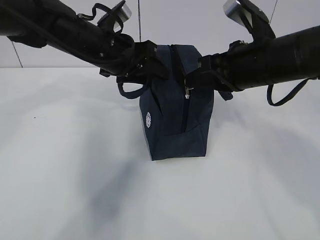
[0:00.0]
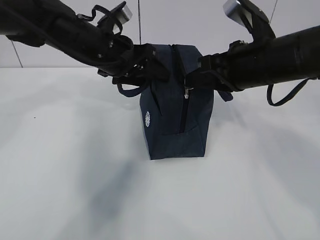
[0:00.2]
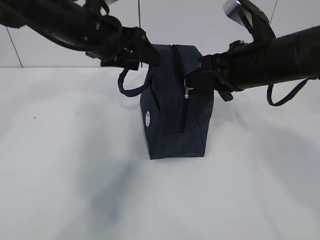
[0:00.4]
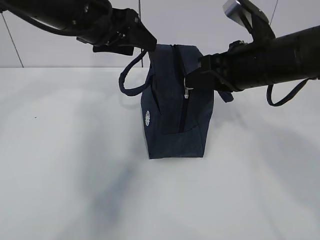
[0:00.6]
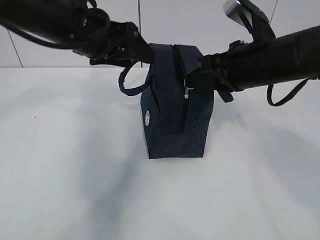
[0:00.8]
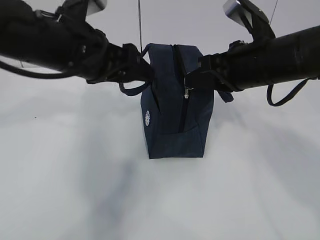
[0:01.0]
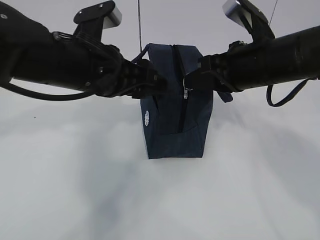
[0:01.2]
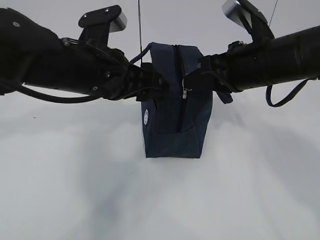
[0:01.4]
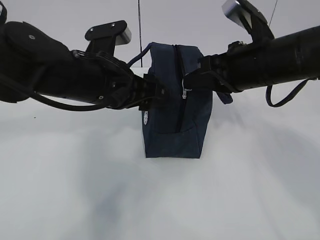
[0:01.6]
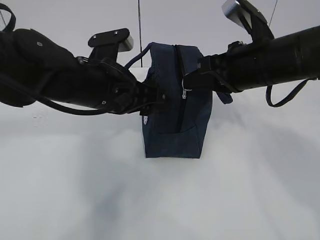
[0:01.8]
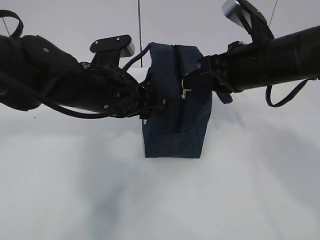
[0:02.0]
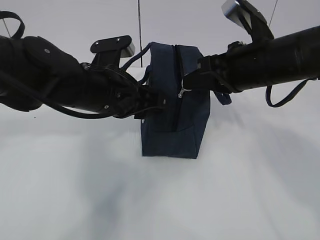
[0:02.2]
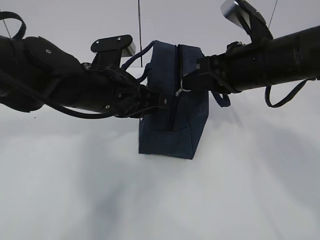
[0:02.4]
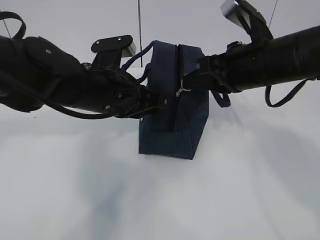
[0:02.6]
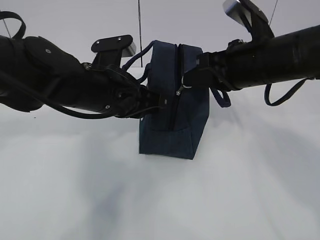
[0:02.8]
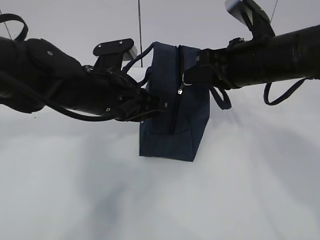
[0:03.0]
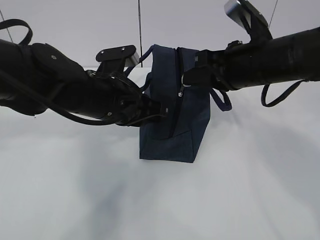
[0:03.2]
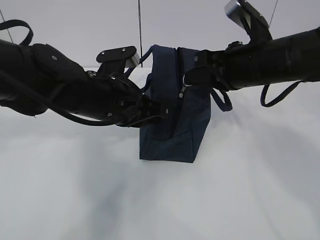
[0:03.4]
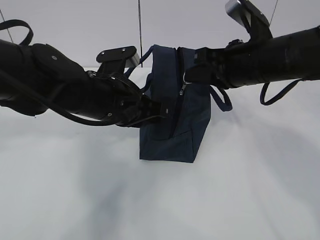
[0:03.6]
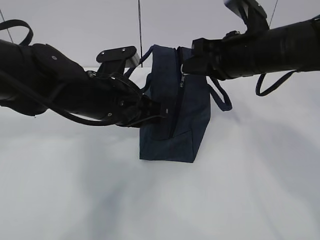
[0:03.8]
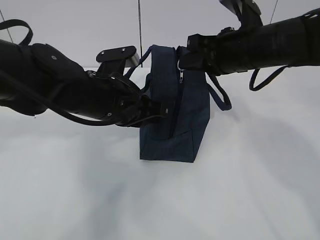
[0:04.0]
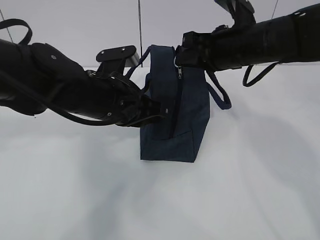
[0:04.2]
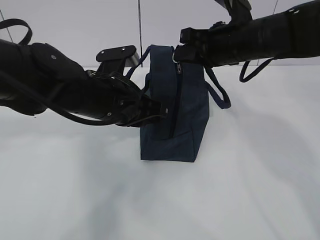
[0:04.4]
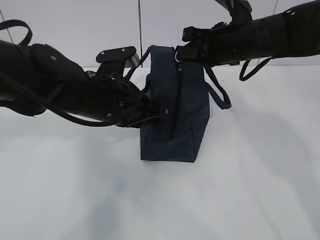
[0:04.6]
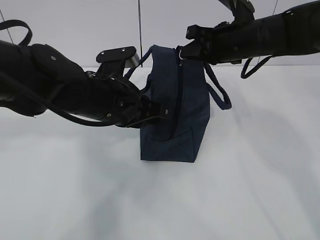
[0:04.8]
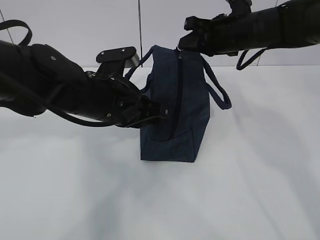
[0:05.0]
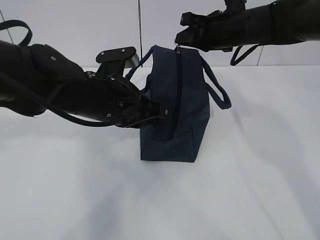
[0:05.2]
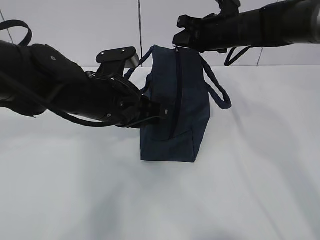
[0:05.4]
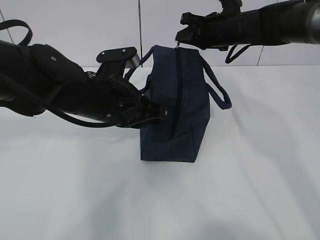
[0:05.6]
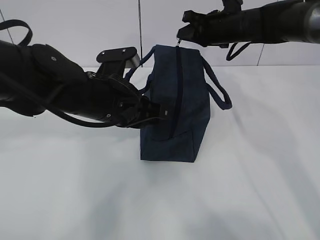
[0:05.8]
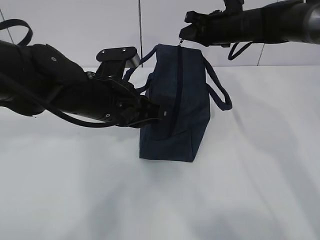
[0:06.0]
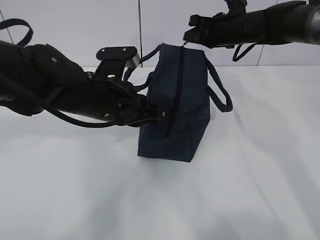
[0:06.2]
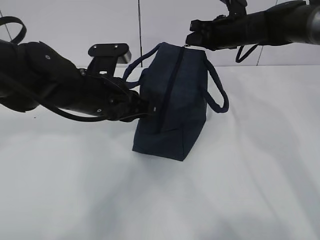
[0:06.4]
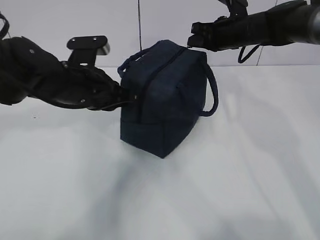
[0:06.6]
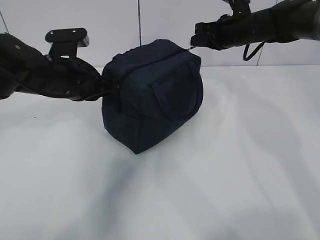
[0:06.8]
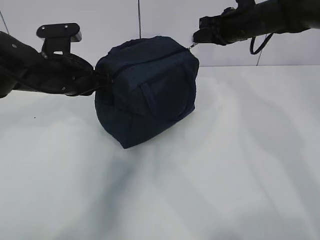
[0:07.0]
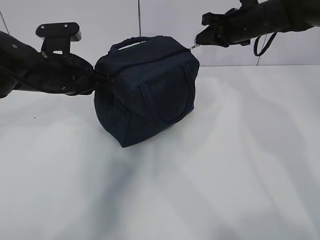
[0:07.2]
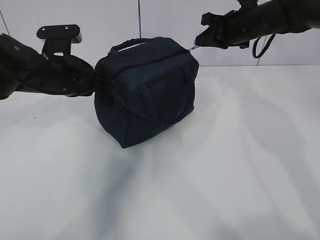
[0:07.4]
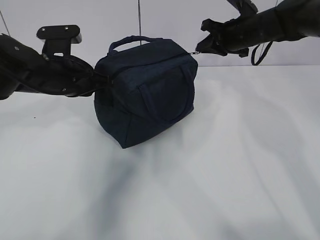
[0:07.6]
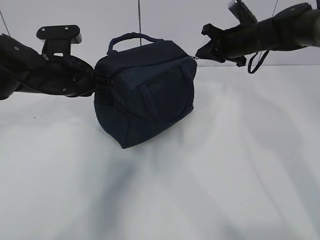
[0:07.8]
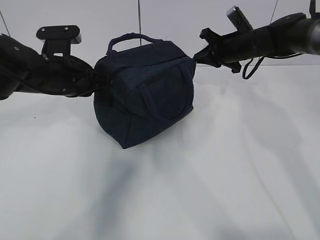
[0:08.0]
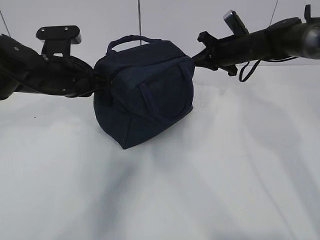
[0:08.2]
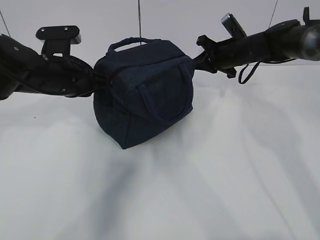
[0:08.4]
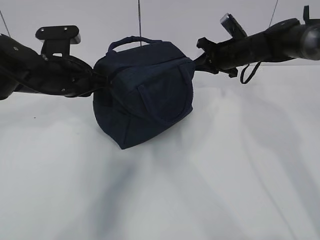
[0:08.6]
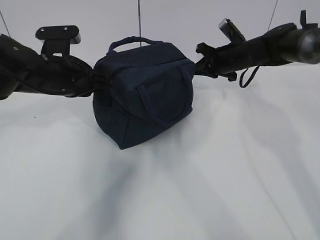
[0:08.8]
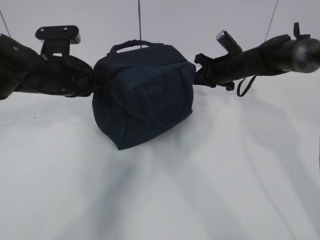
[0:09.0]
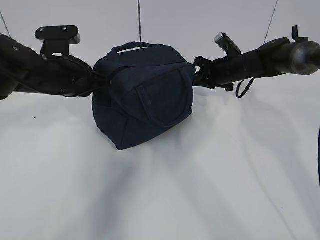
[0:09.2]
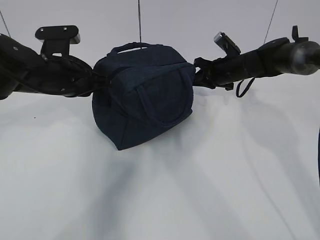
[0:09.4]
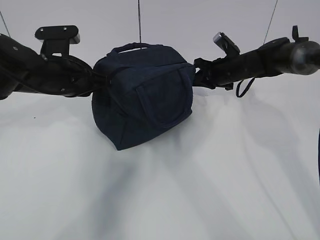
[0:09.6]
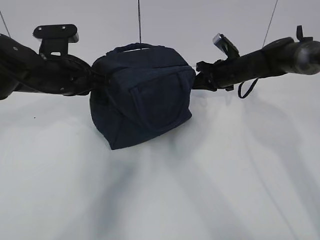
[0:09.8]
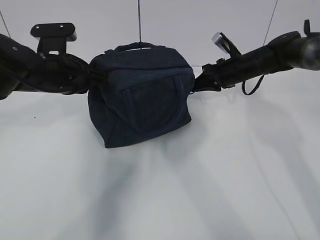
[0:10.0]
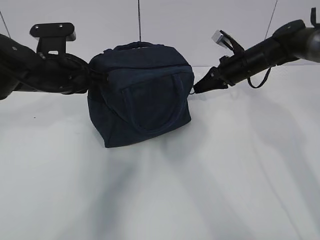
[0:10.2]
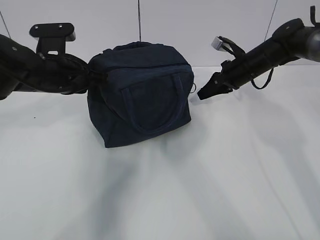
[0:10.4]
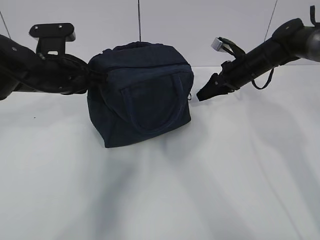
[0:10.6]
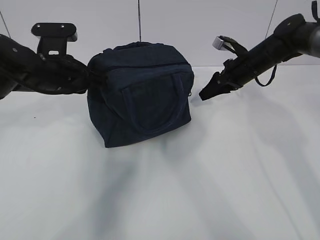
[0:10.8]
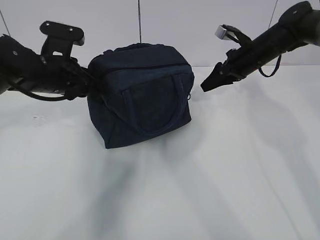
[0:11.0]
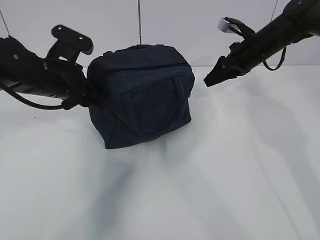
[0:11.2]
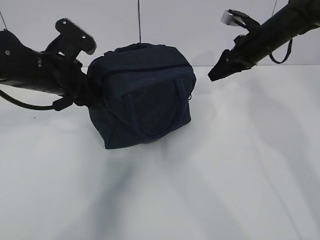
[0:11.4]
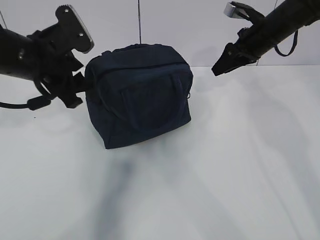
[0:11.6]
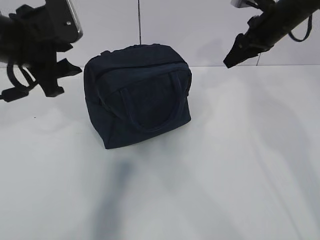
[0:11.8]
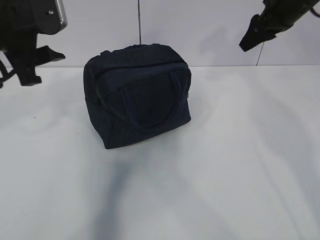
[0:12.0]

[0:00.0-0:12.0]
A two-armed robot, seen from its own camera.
0.0 to 1.6 s: The left gripper heads backward, covering about 10 cm.
1.6 to 3.0 s: The left gripper closes its fingers.
3.0 to 4.4 s: The right gripper goes some 5 cm forward.
4.4 to 6.0 s: The right gripper travels forward by some 15 cm.
6.0 to 7.6 s: The left gripper shifts approximately 10 cm to the left and forward.
7.6 to 9.0 s: The right gripper moves downward, some 10 cm.
10.4 to 12.0 s: The left gripper travels upward and backward by approximately 10 cm, and opens its fingers; the right gripper shifts about 15 cm upward, and opens.

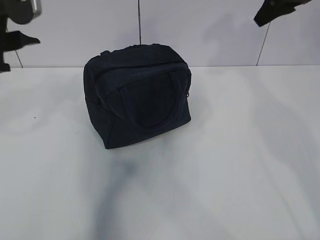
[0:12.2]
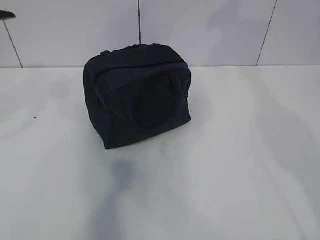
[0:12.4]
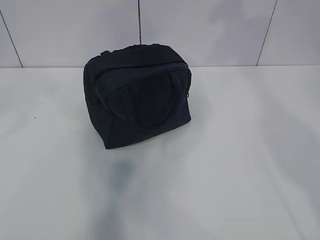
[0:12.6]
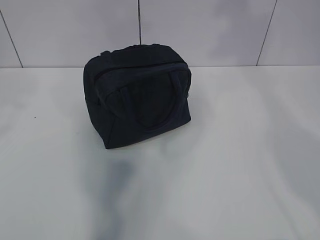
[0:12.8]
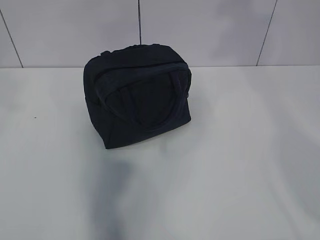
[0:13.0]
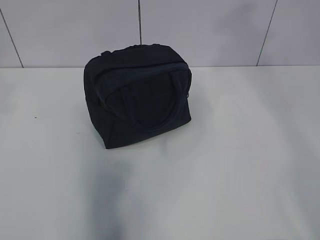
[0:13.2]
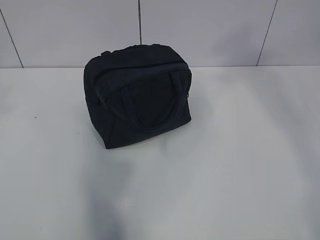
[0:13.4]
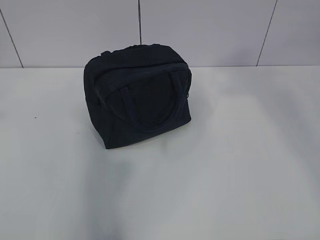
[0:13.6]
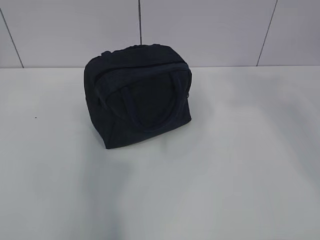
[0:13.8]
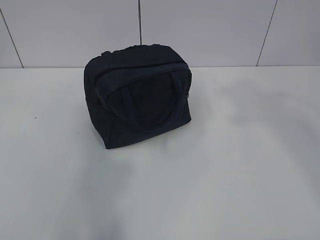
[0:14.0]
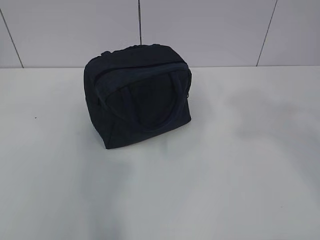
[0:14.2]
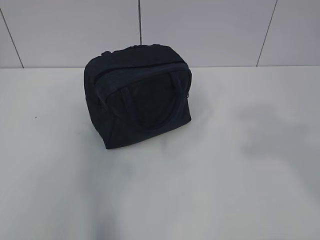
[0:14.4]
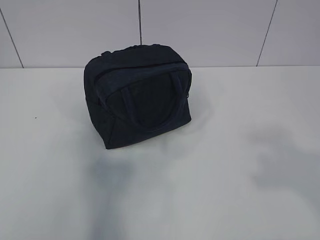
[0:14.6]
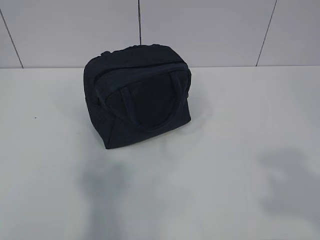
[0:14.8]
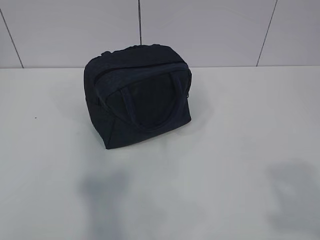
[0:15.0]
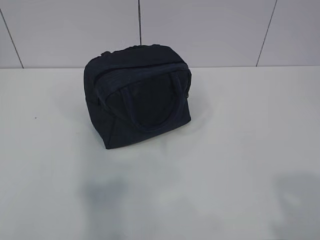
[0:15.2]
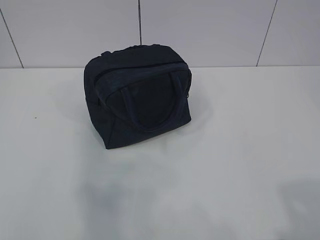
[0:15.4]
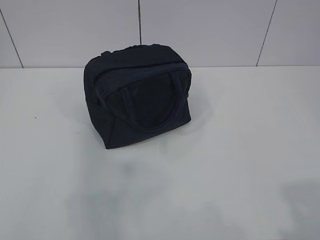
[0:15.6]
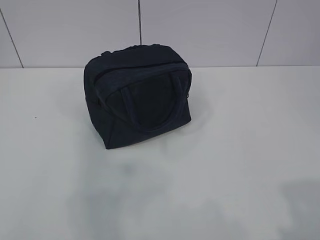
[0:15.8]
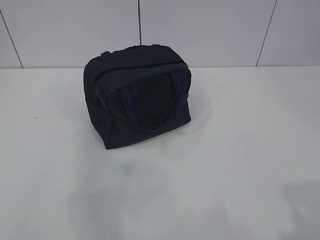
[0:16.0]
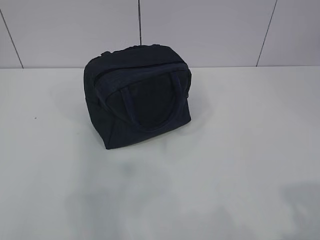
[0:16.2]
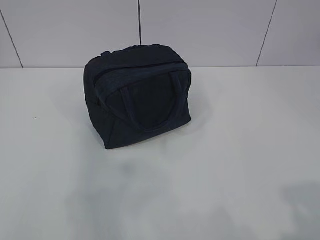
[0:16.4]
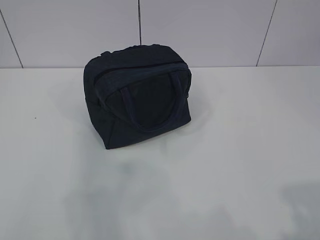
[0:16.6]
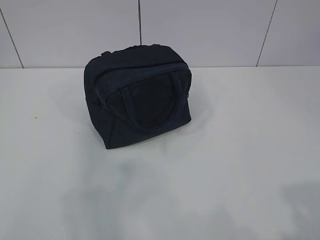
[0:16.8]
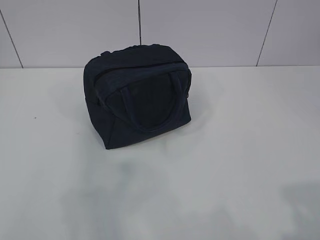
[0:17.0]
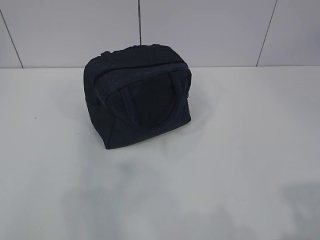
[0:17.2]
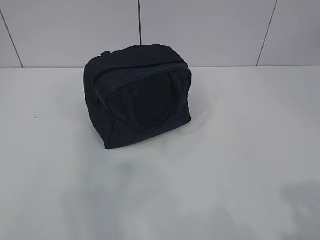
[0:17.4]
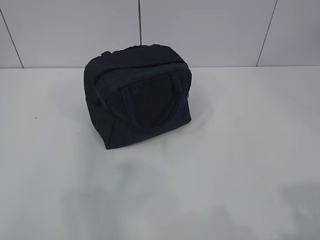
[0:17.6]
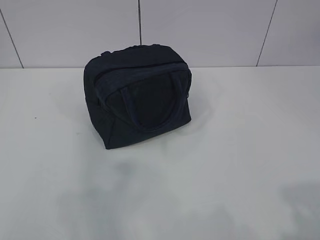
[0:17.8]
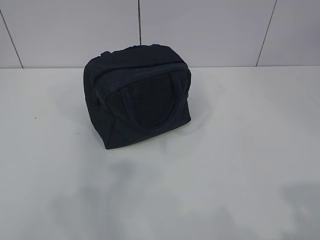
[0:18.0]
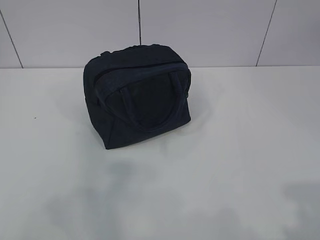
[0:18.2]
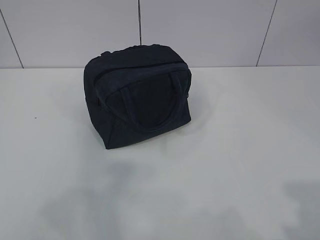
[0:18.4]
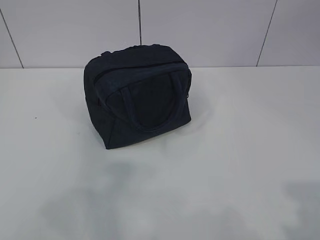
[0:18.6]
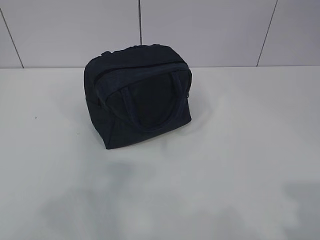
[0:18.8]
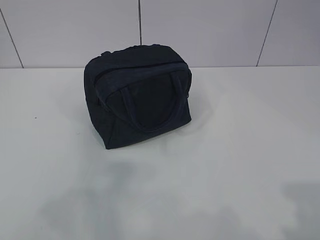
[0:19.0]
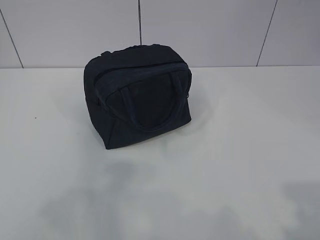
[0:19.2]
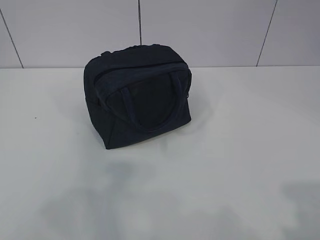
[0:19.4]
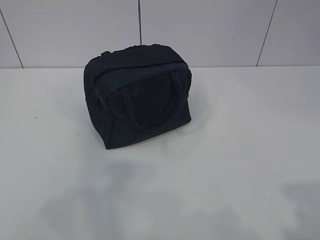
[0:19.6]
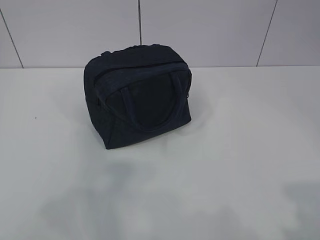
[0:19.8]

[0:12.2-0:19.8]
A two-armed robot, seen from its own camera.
12.2 to 13.8 s: The right gripper shifts roughly 40 cm backward and upward; the left gripper is displaced backward, upward and to the left by roughly 25 cm.

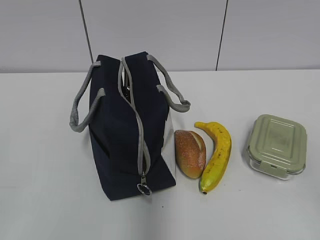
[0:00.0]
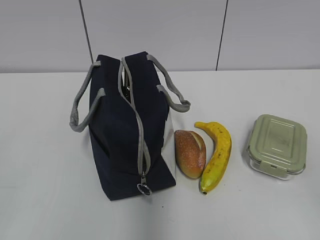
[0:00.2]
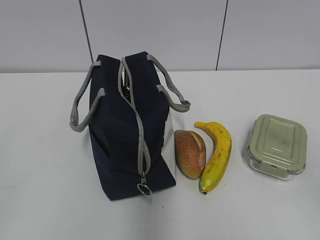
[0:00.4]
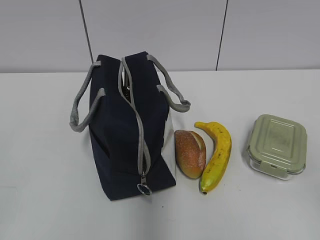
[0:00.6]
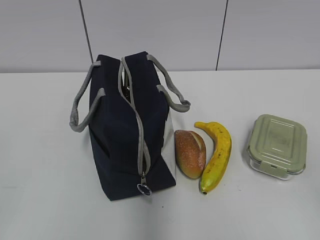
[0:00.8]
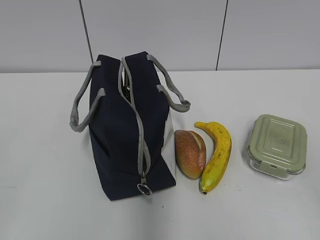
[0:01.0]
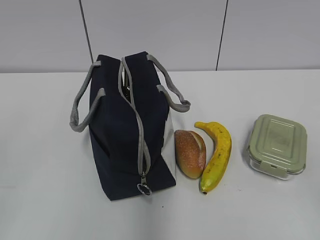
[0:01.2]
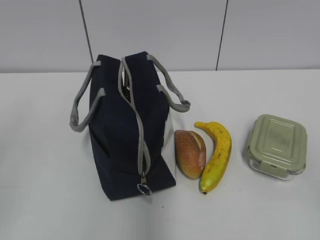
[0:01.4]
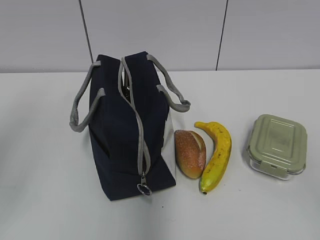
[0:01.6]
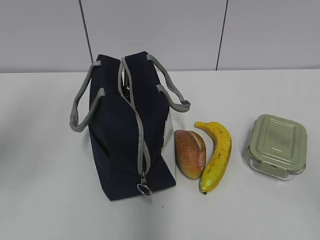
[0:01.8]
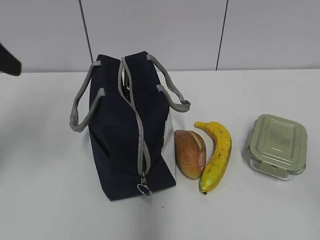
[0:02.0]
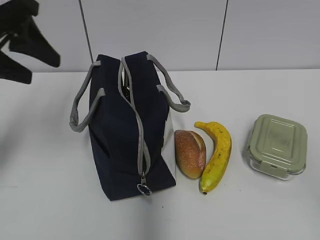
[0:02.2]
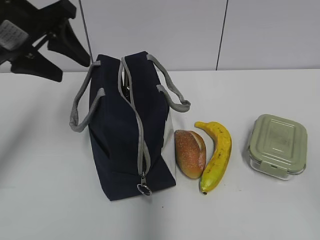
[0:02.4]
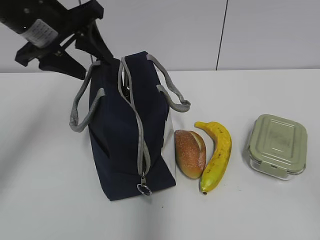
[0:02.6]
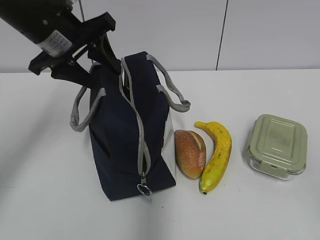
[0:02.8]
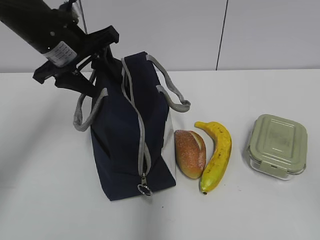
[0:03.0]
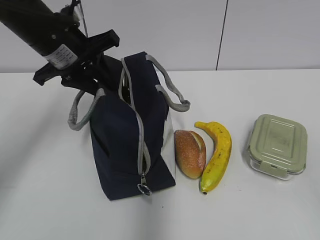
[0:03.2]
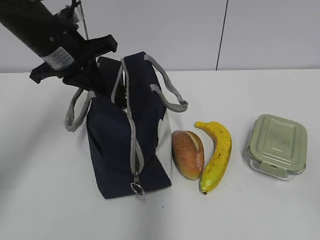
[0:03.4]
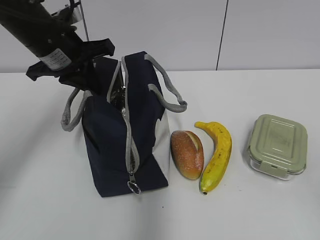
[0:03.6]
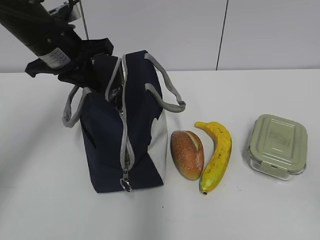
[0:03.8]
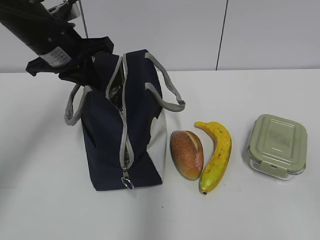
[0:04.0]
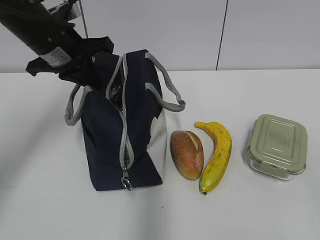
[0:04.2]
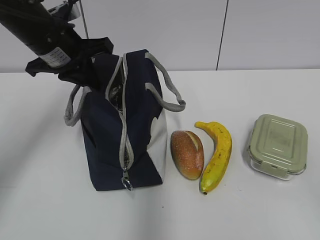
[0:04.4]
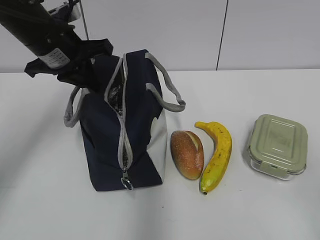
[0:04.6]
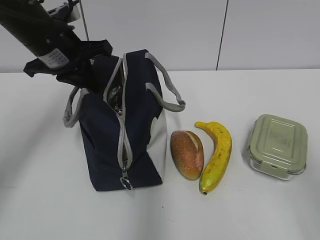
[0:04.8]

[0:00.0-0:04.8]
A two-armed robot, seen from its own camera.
1.6 to 3.2 s: The left gripper travels forward and to the right by about 25 cm.
3.2 to 4.8 s: The right gripper goes approximately 5 cm forward; the left gripper closes its fingers.
